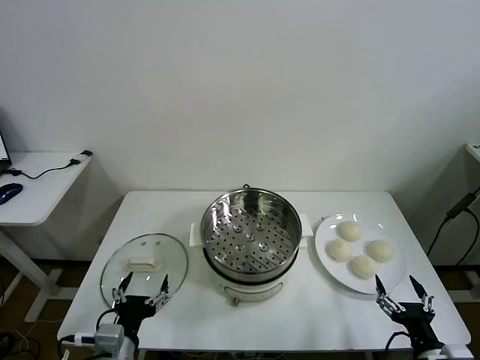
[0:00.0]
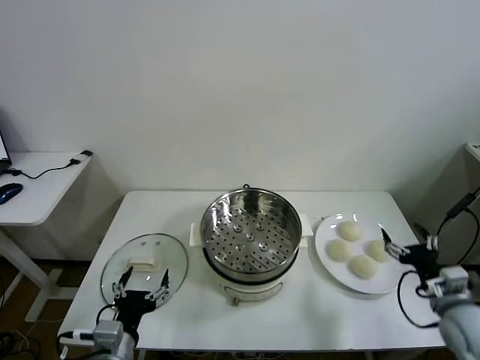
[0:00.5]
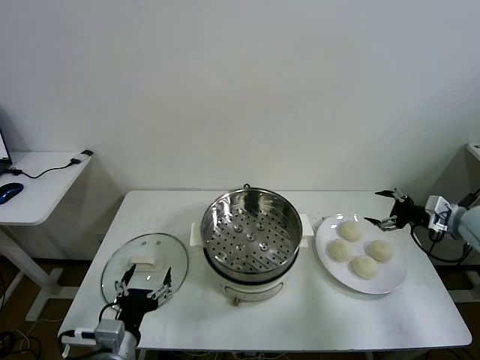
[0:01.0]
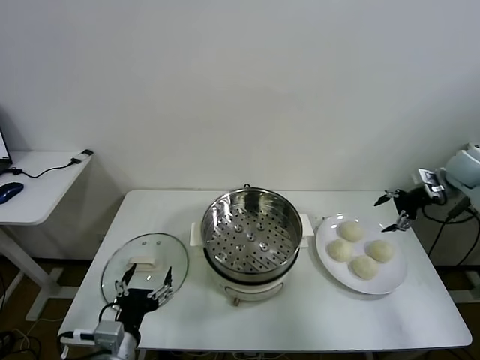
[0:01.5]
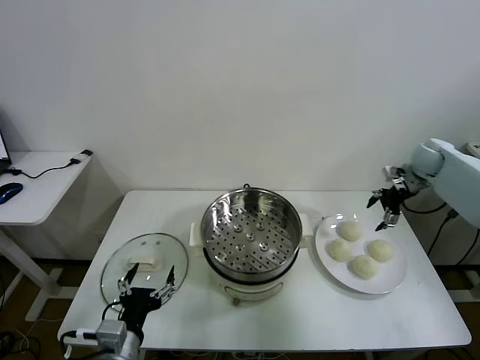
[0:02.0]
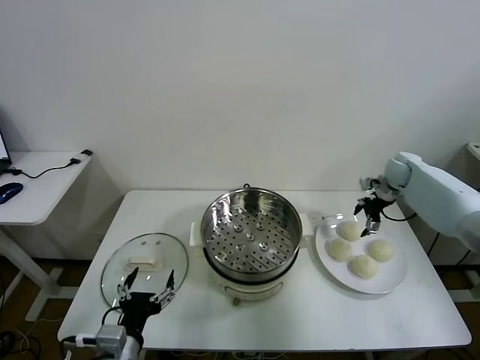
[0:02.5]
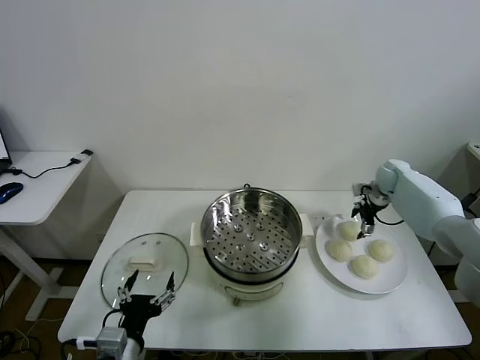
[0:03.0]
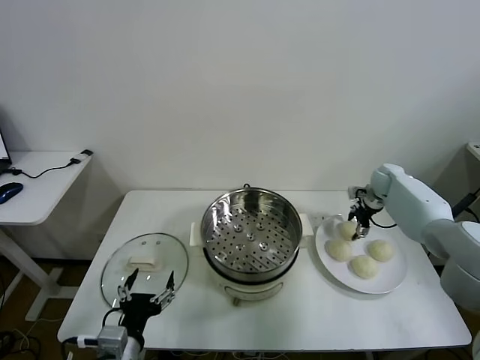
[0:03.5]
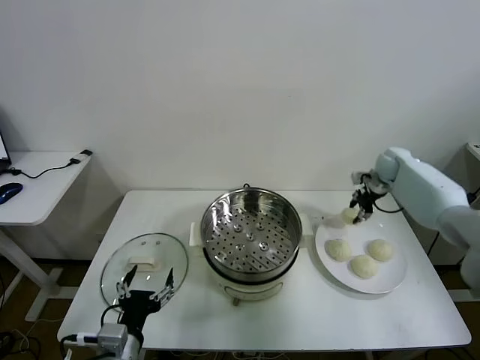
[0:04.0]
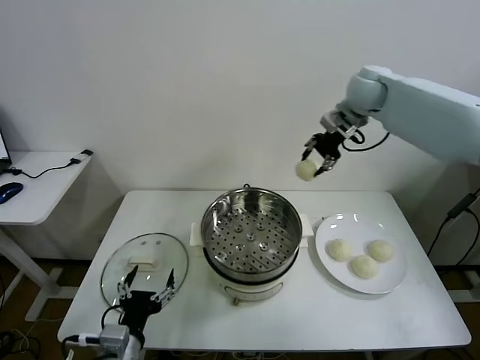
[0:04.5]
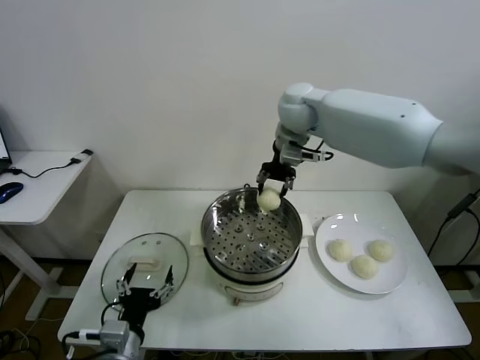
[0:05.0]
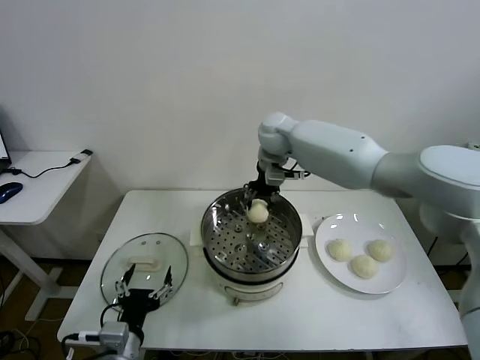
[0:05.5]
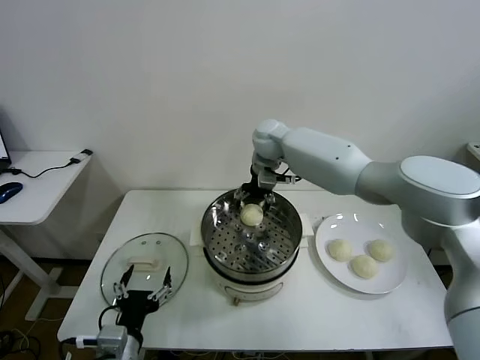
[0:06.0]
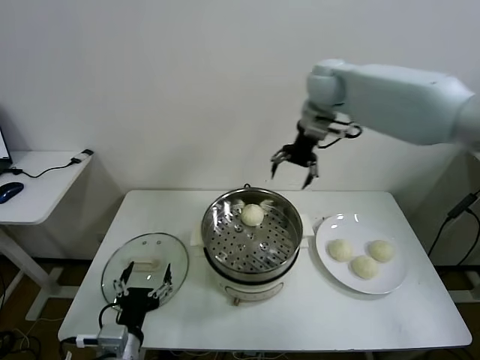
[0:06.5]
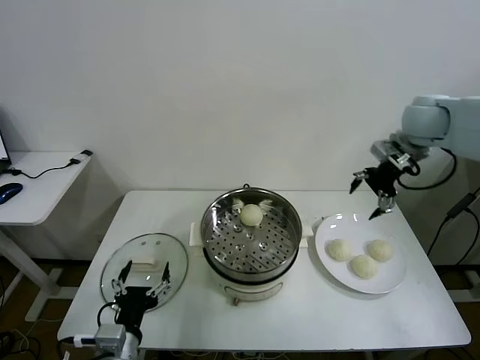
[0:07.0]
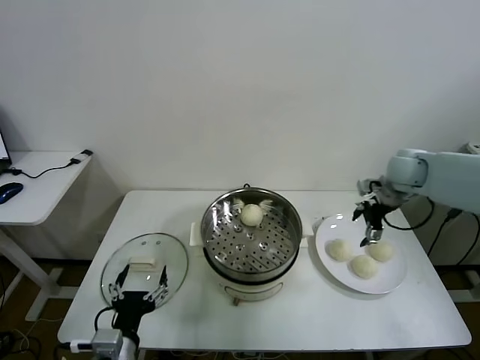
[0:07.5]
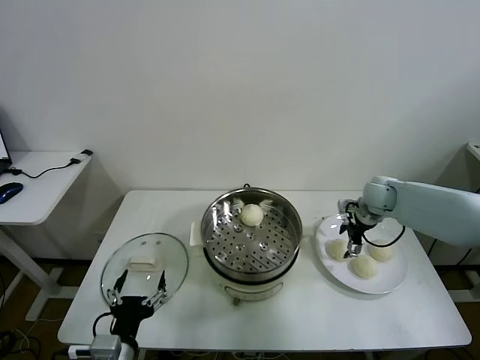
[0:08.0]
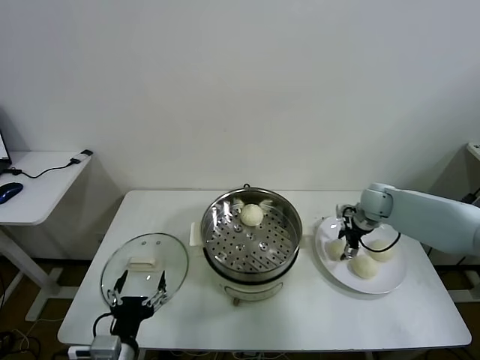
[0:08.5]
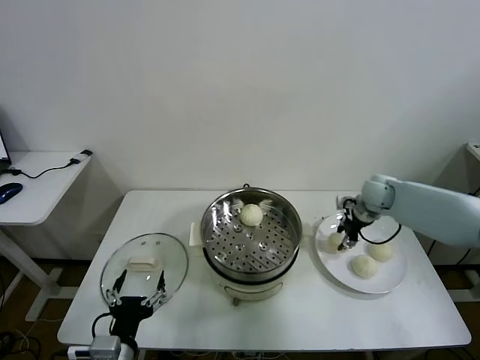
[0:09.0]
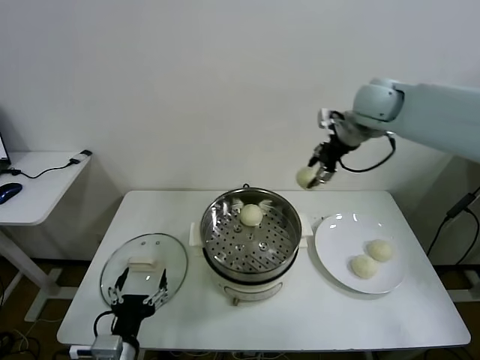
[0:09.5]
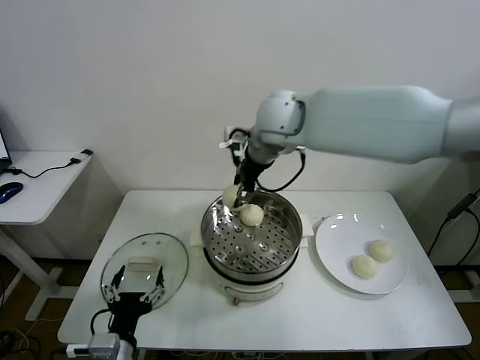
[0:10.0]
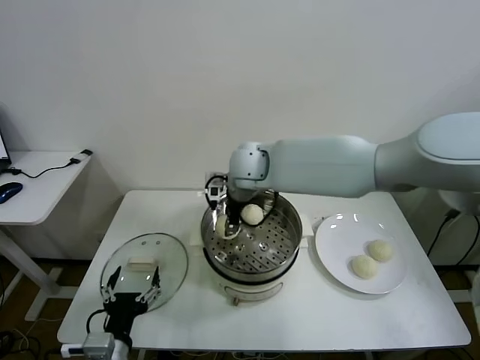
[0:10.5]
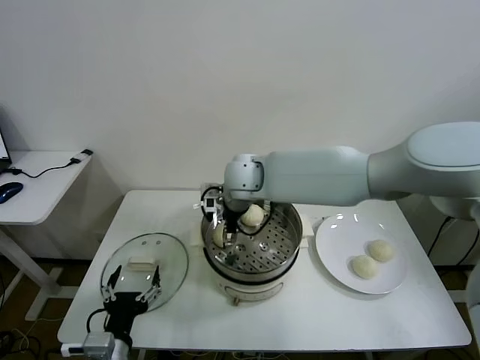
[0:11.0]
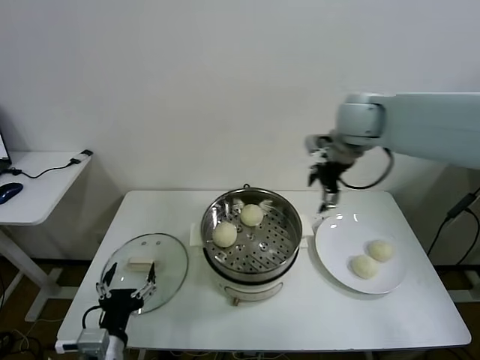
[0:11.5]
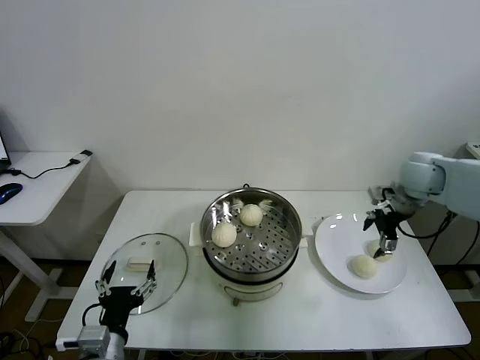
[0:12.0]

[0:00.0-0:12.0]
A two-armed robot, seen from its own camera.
Task of the whole recording: take steamed baozi put them in steamer then cover it.
Step, 0:00.0 to 0:03.5: Grasp the baozi in the plate with right gripper.
Step, 0:04.0 to 0:06.0: Place the baozi on the steamer with right gripper.
Step, 0:06.5 to 0:08.5: Grasp the baozi in the plate with right gripper.
Step, 0:09.0 to 0:11.0: Place the baozi on the steamer with right gripper.
0:02.0 to 0:04.0: The right gripper shifts about 5 cm to the left, moves roughly 10 cm downward and comes back, and closes up.
0:04.0 to 0:06.0: The right gripper heads to the left, covering roughly 35 cm, and opens.
0:06.0 to 0:08.0: The right gripper heads to the right and downward, covering roughly 30 cm.
0:08.0 to 0:10.0: The right gripper travels to the left and upward by some 40 cm, and closes.
0:10.0 to 0:12.0: The right gripper is displaced to the right by approximately 35 cm, and opens up.

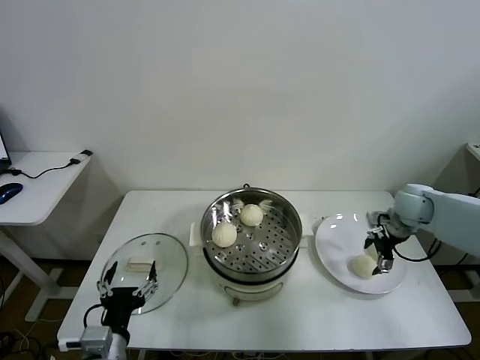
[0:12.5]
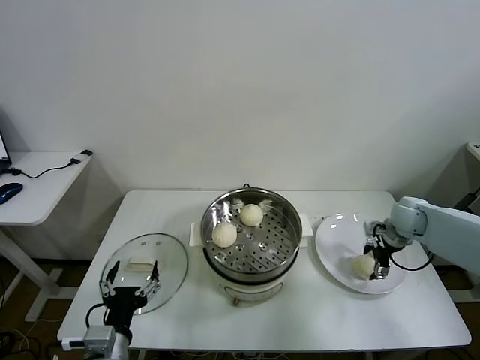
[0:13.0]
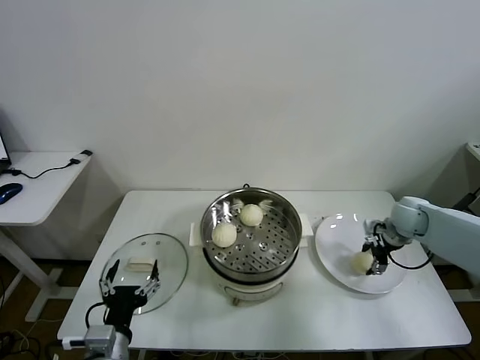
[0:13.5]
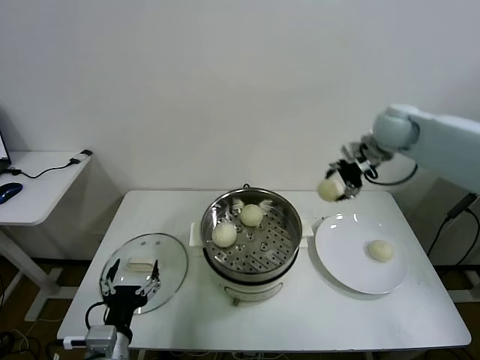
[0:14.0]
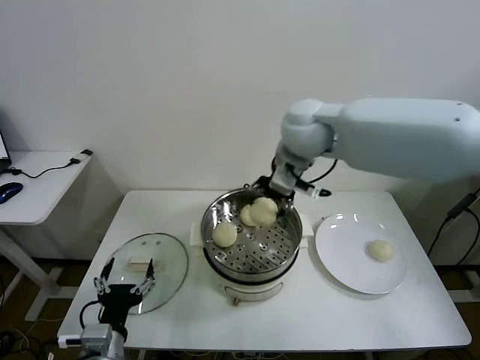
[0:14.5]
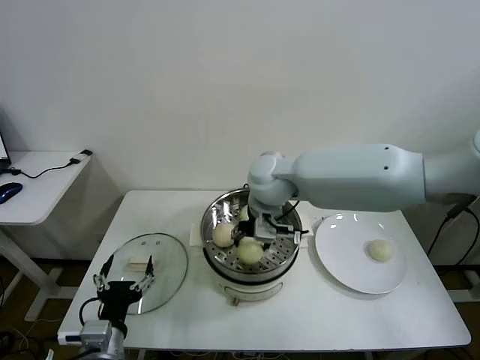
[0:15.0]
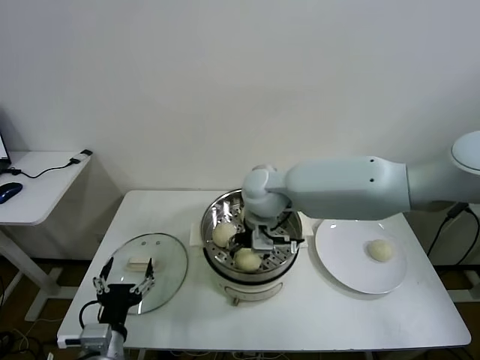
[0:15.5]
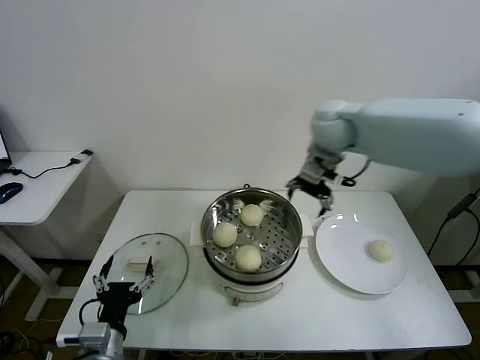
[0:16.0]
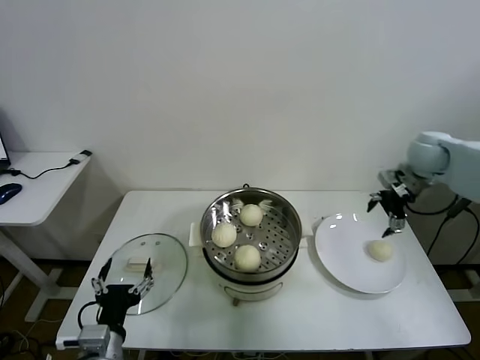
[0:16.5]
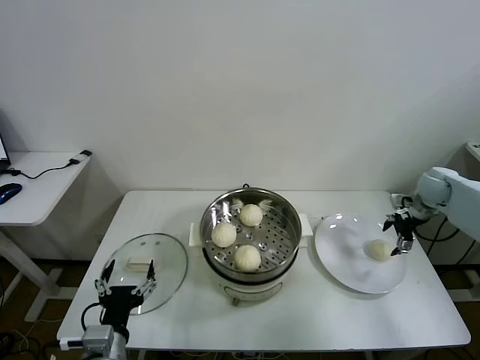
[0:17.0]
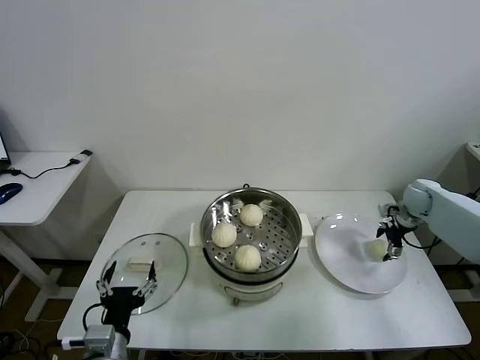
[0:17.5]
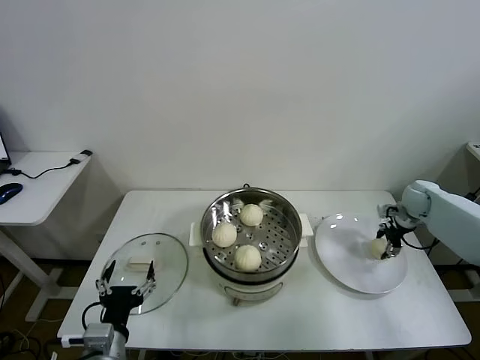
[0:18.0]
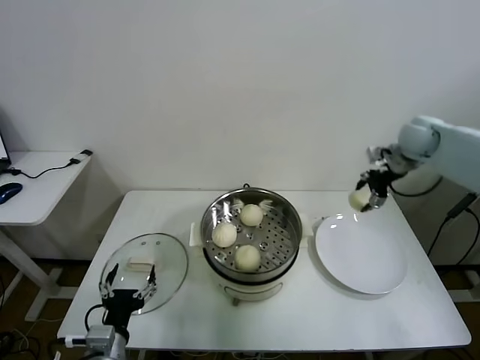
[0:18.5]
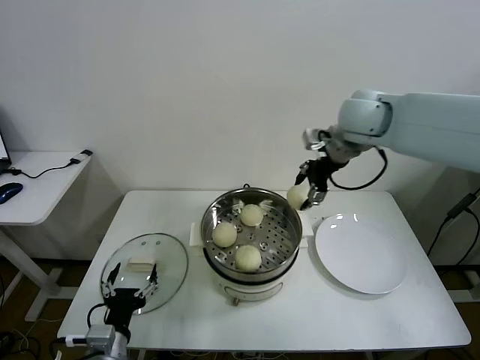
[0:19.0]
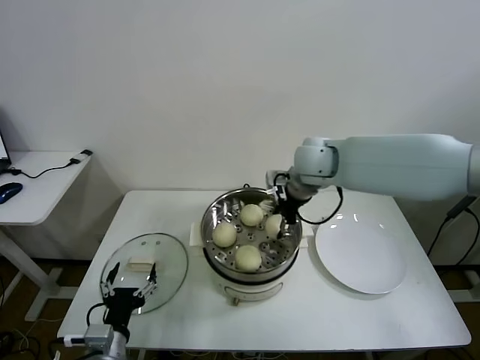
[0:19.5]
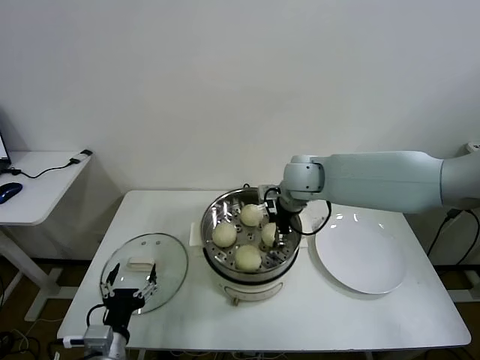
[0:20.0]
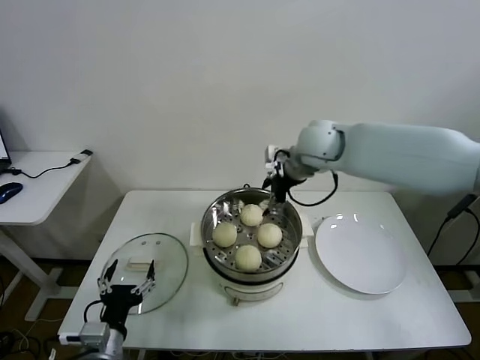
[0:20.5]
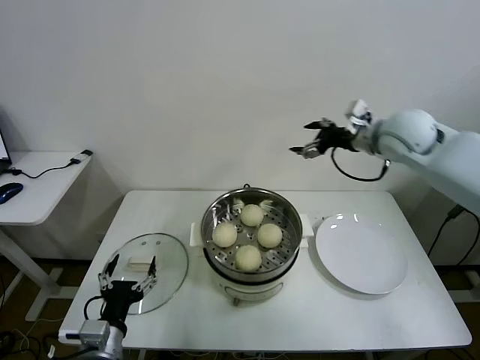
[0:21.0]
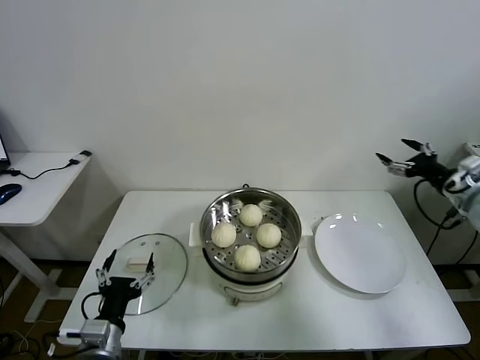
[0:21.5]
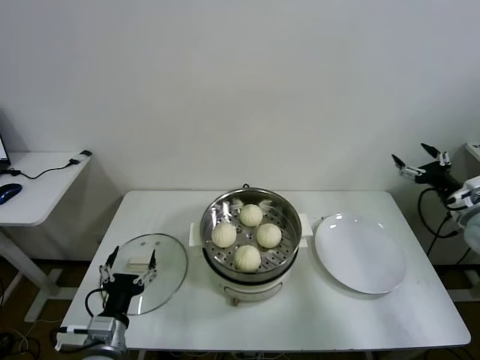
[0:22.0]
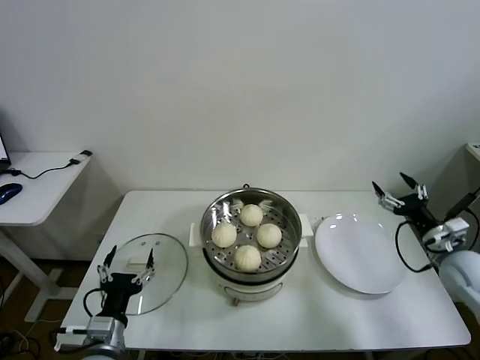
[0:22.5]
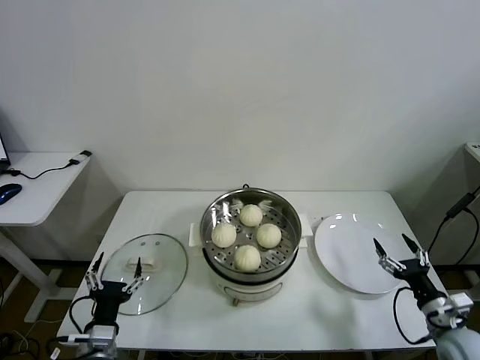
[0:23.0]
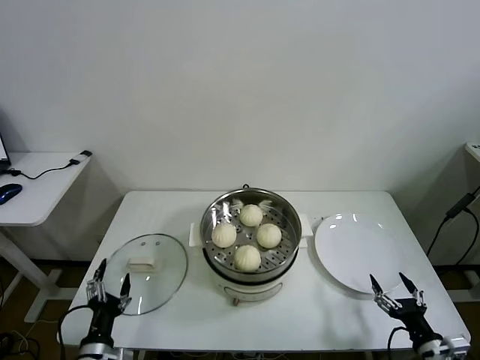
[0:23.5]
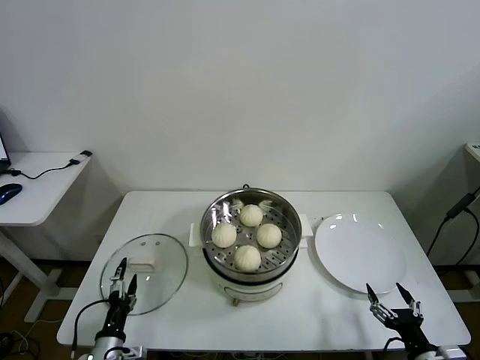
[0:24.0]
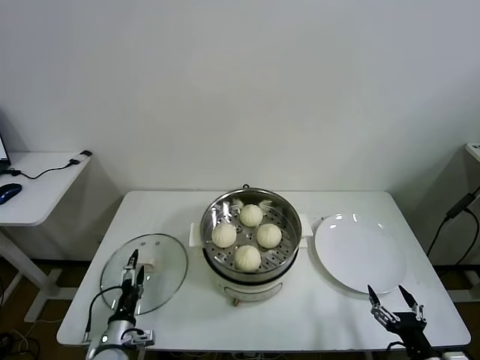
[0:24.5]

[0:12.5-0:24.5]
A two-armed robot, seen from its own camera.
Task of the whole recording: take steamed baozi put them in steamer then cover it.
Step, 0:13.5 to 0:15.5: Place the baozi on the steamer with right gripper.
Step, 0:16.0 to 0:17.5: Grasp the baozi in the plate with right gripper.
Step, 0:18.0 to 0:20.0: Place the baozi on the steamer with right gripper.
0:12.5 to 0:14.5: The right gripper heads to the left and upward, covering some 40 cm, and closes.
0:14.5 to 0:16.5: The right gripper moves to the right, about 30 cm, and opens up.
0:16.5 to 0:18.5: The right gripper moves some 15 cm downward and comes back, and closes.
0:18.5 to 0:20.5: The right gripper is displaced to the left by approximately 25 cm, and opens.
0:20.5 to 0:22.5: The right gripper is displaced to the right, downward and backward by approximately 40 cm.
0:22.5 to 0:24.5: The right gripper moves backward, to the left and downward, some 25 cm, while the left gripper shifts roughly 15 cm downward.

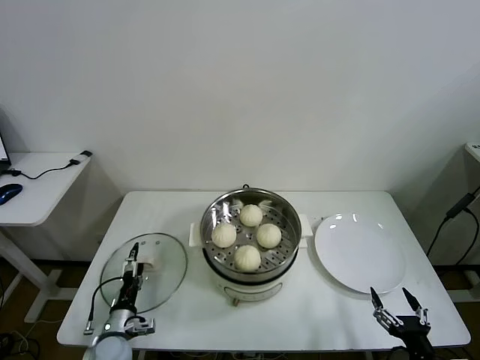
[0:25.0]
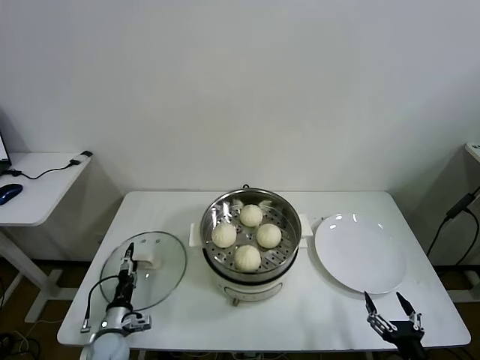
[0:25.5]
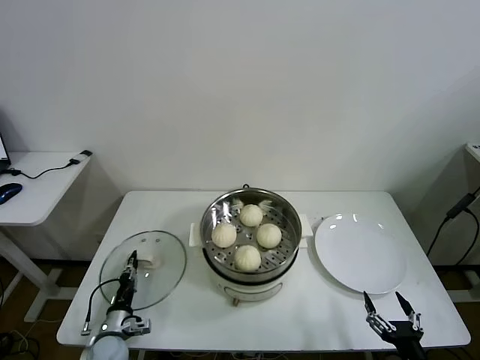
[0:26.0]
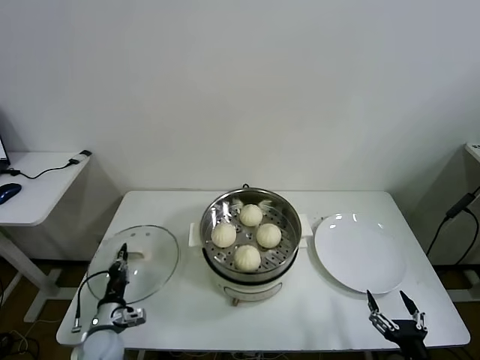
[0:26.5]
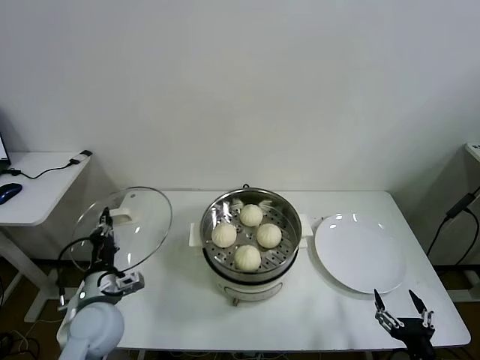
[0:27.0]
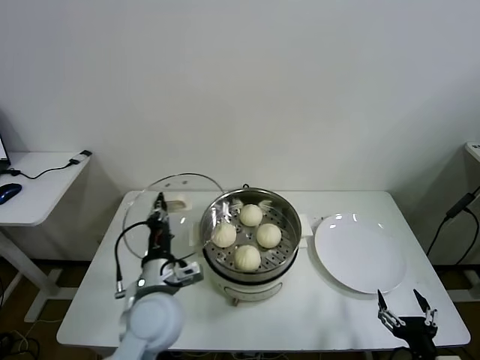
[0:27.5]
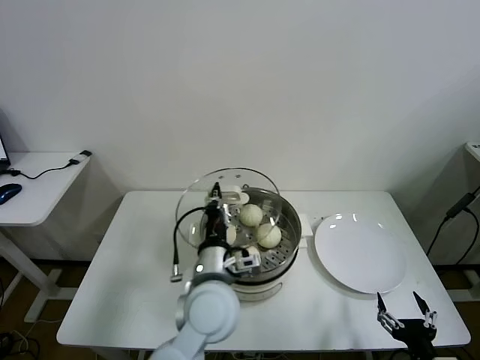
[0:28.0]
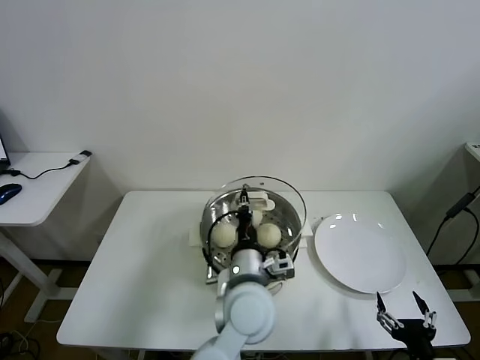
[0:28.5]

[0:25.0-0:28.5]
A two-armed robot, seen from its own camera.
Task of the whole recording: take steamed baozi put them in steamer then cover it.
0:25.0 to 0:27.0: The left gripper travels upward by some 15 cm, and closes its fingers.
0:27.0 to 0:28.5: The left gripper shifts roughly 30 cm to the right.
